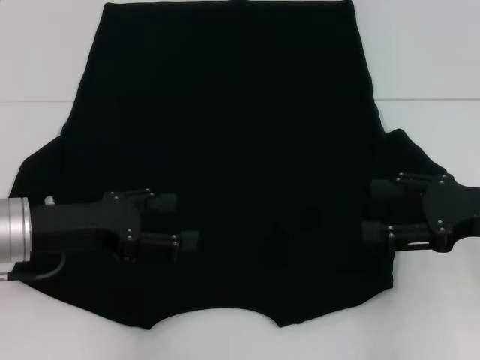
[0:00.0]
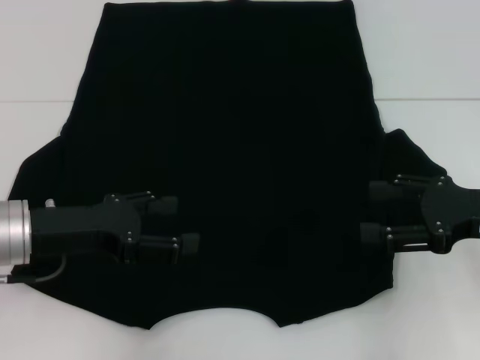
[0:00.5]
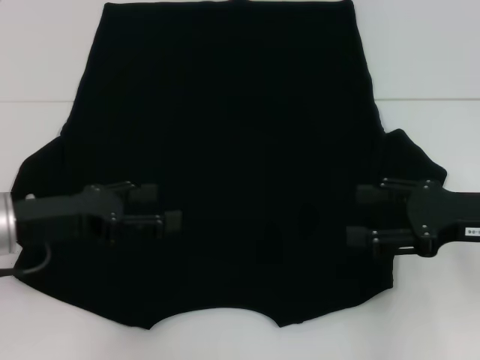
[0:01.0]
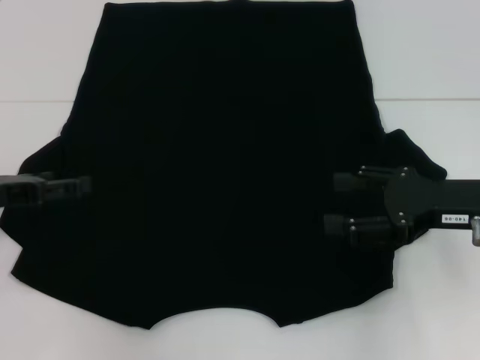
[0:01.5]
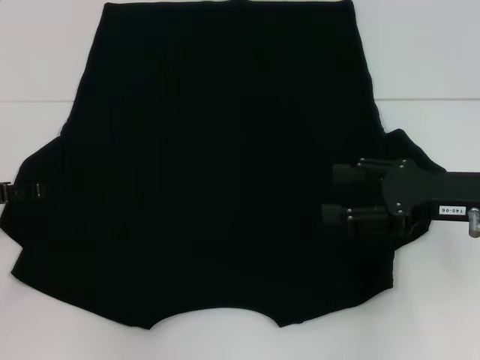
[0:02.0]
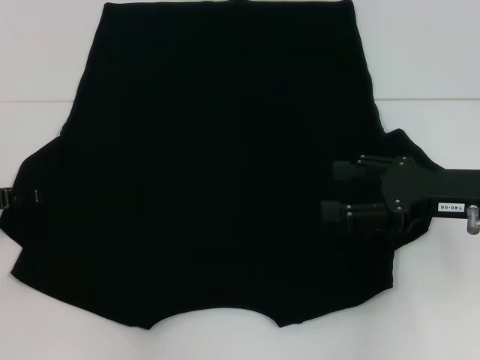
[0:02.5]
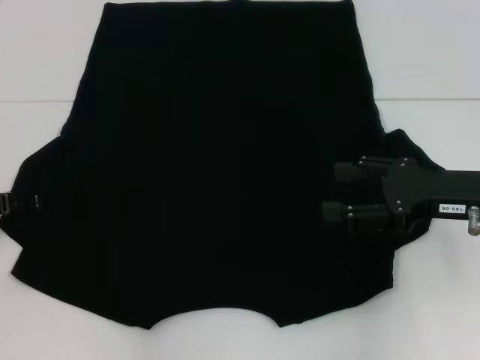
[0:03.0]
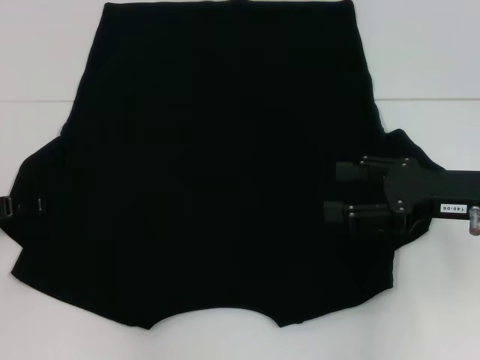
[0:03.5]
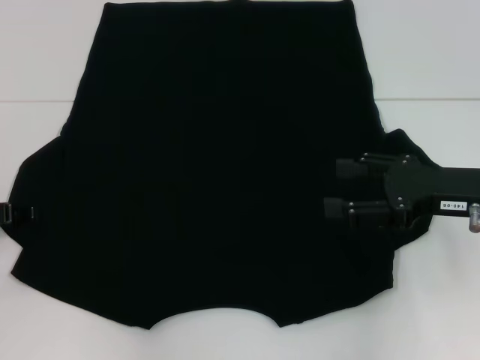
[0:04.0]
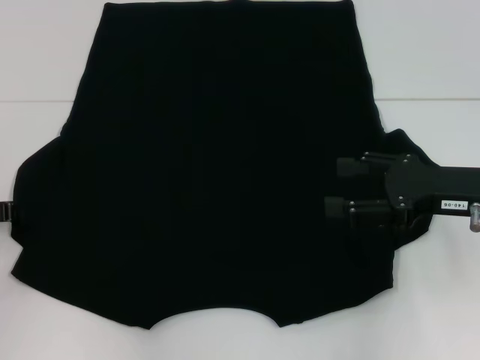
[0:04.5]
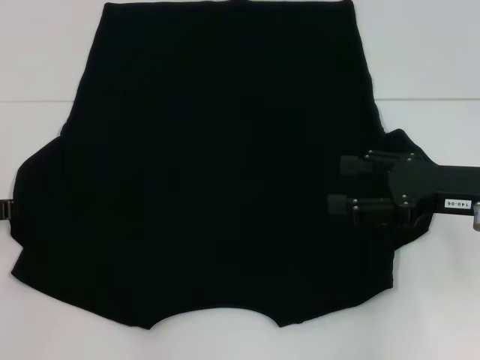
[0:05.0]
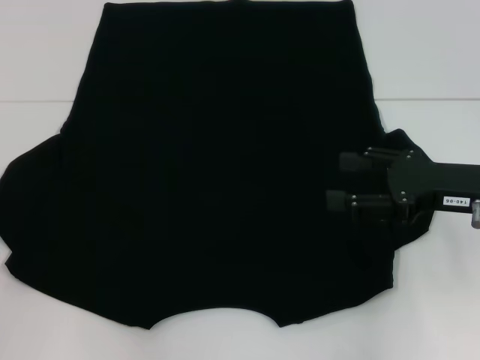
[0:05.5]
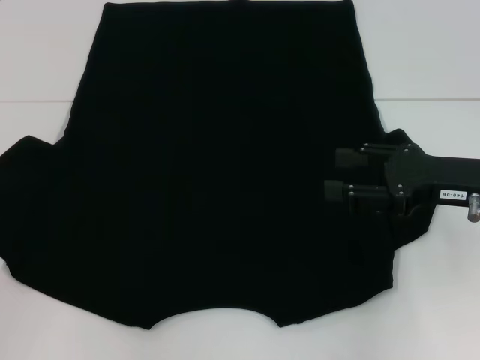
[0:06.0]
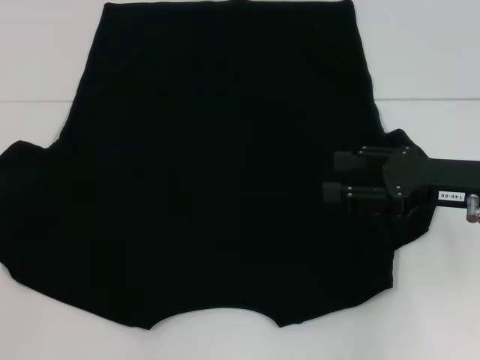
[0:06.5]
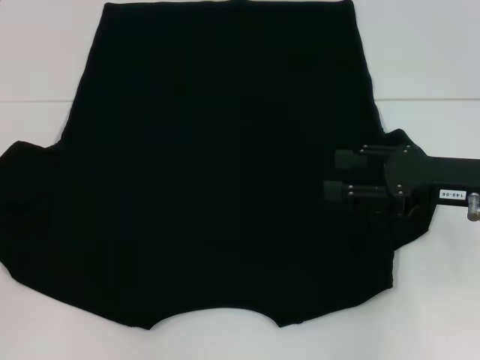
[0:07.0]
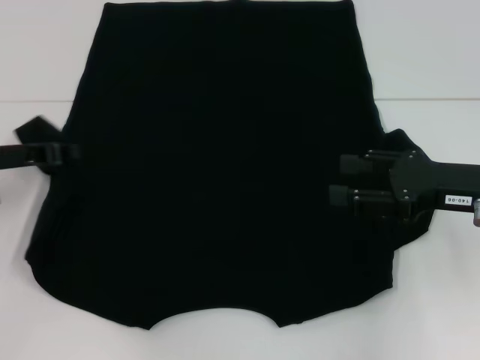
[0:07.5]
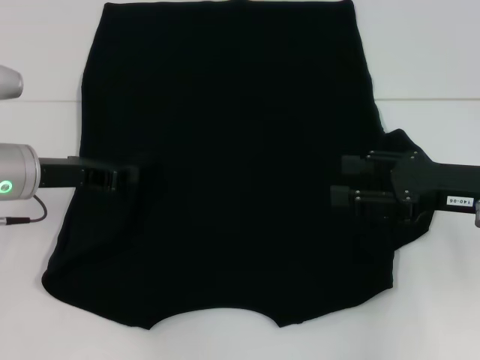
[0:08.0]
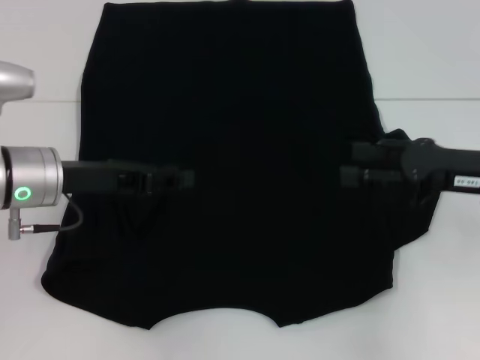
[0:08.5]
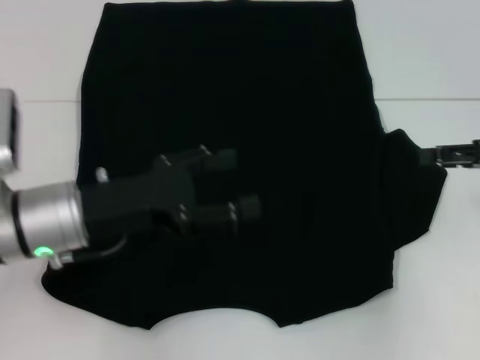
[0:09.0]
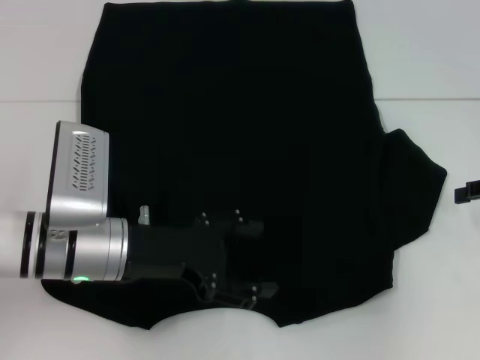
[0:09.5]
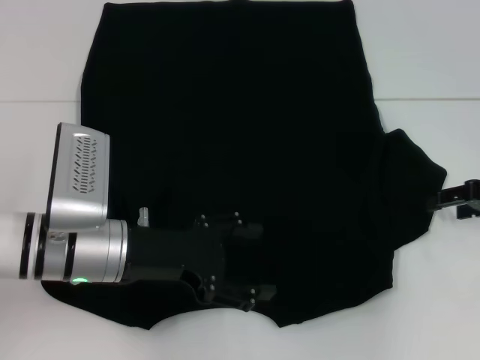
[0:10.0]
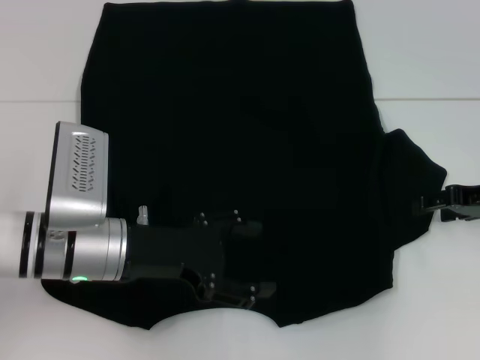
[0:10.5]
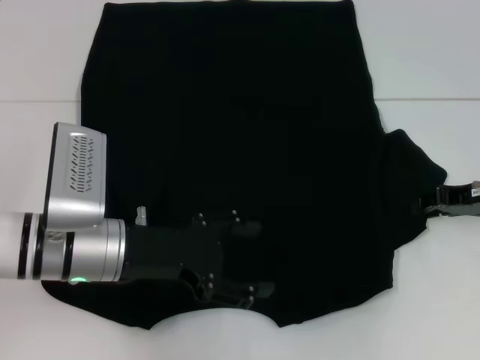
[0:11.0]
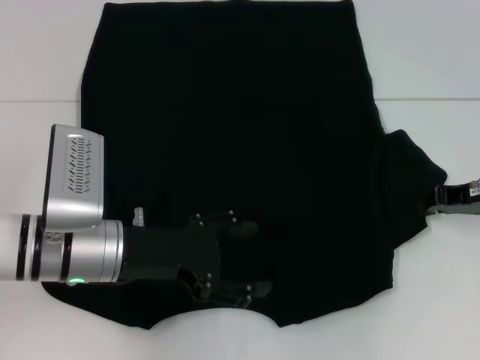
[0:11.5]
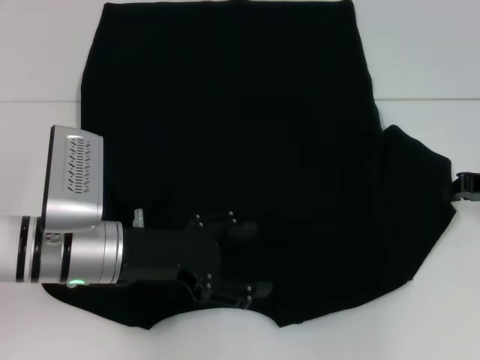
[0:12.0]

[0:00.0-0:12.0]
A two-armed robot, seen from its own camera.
Step, 0:00.0 to 0:08.0: Fold the bottom left sleeve with your left hand.
0:00.0 to 0:02.0: The left gripper shifts about 10 cm to the left.
0:02.0 to 0:04.0: There are only small adjustments of the grippers.
0:04.0 to 0:06.0: The left gripper closes.
0:06.0 to 0:08.0: The left gripper moves to the right, approximately 15 cm.
0:08.0 to 0:10.0: The right gripper goes some 5 cm to the right; the left gripper is displaced to the right and backward by approximately 10 cm, and opens its fingers.
0:10.0 to 0:12.0: The right gripper closes.

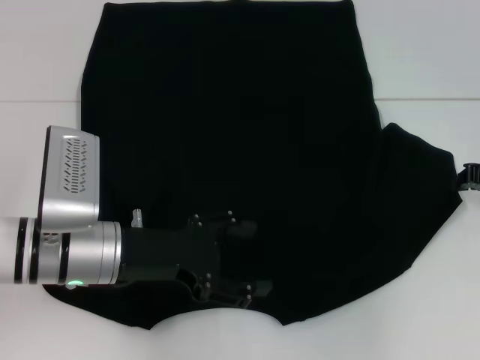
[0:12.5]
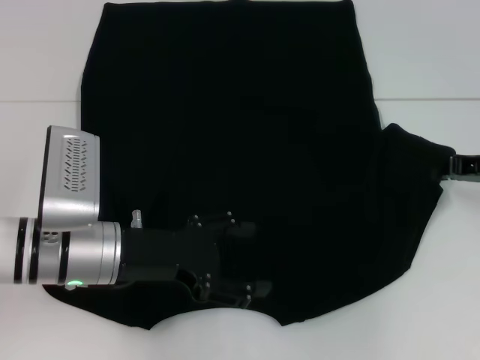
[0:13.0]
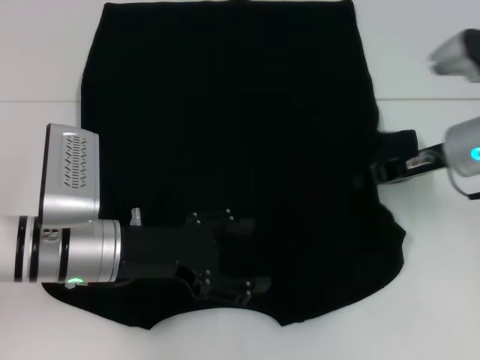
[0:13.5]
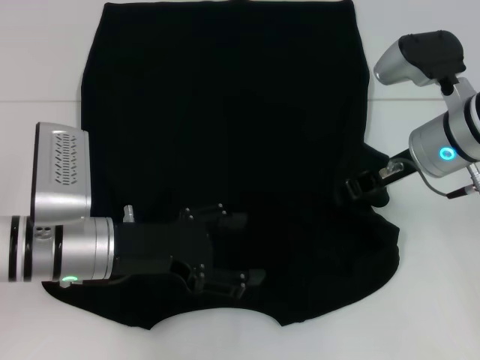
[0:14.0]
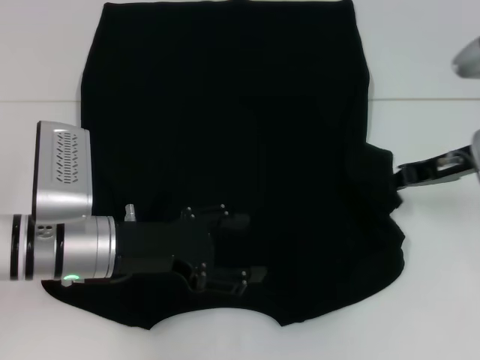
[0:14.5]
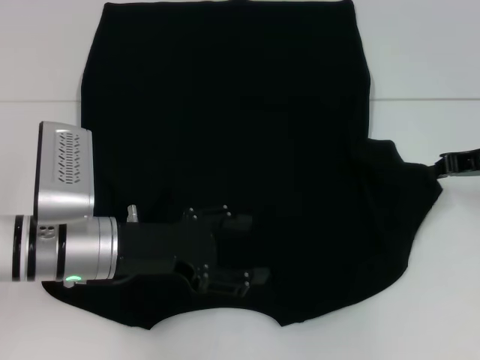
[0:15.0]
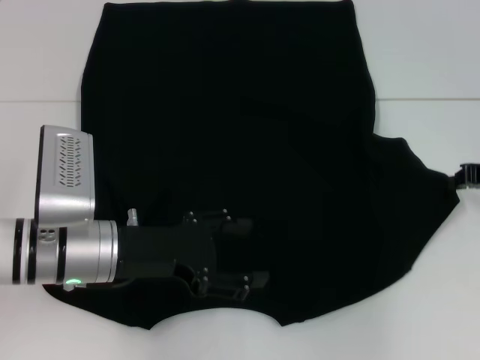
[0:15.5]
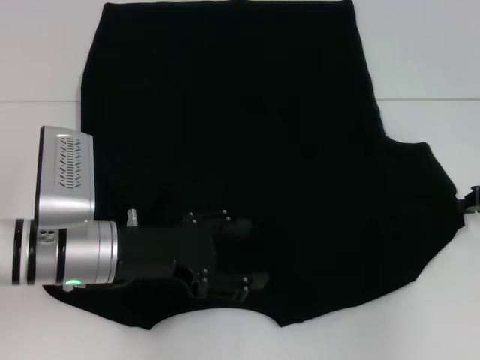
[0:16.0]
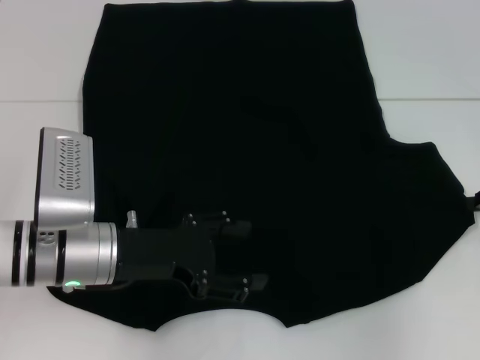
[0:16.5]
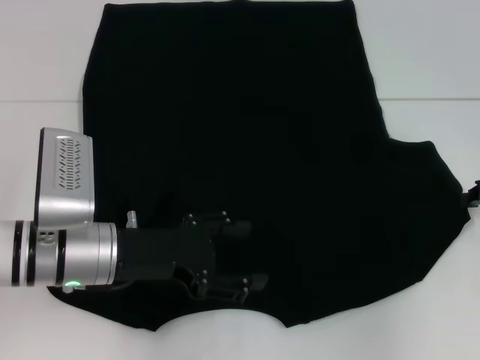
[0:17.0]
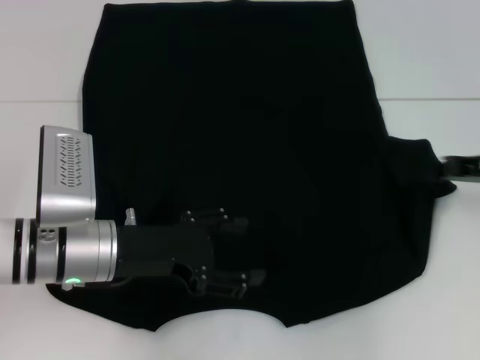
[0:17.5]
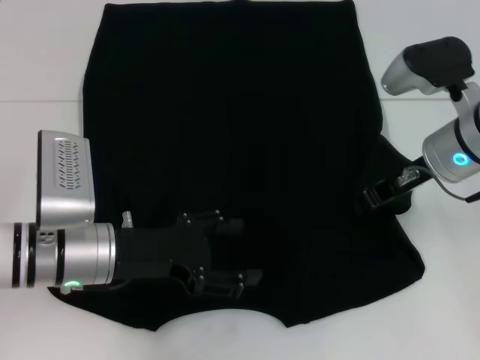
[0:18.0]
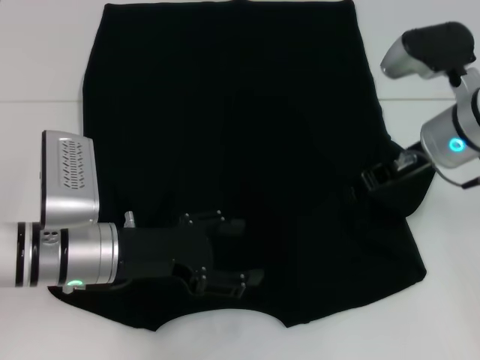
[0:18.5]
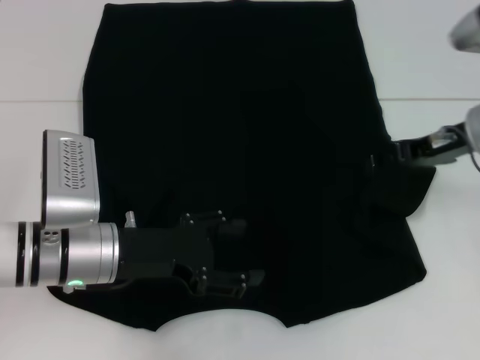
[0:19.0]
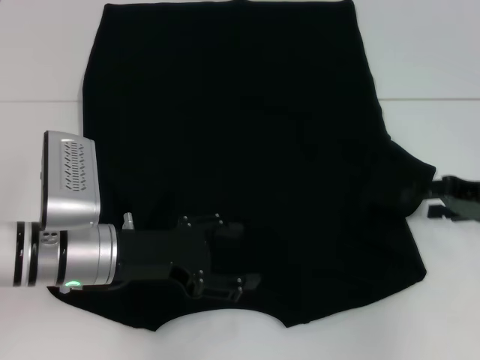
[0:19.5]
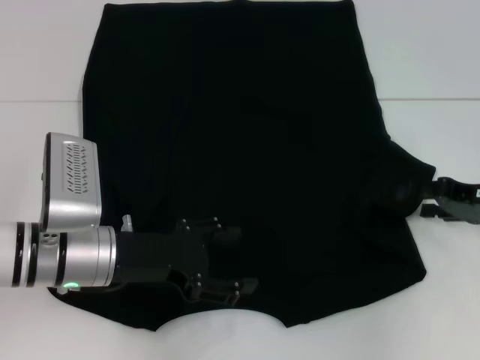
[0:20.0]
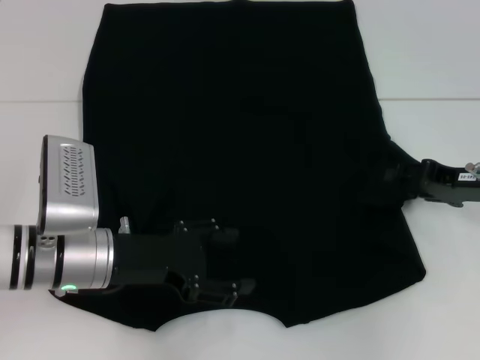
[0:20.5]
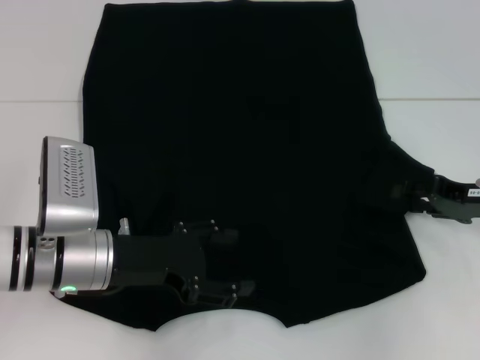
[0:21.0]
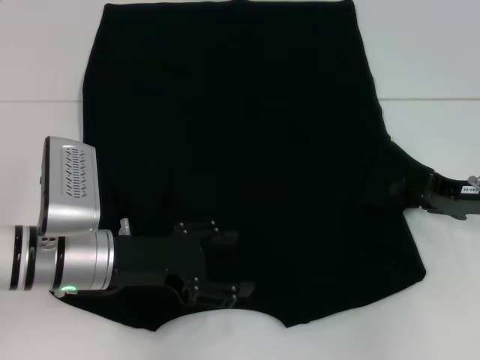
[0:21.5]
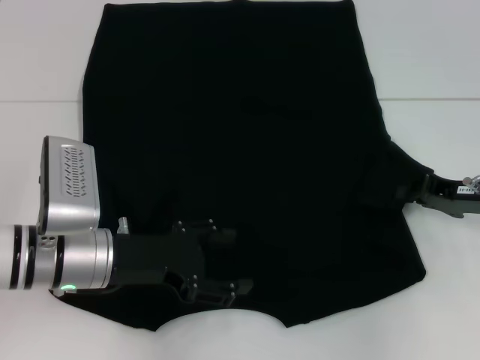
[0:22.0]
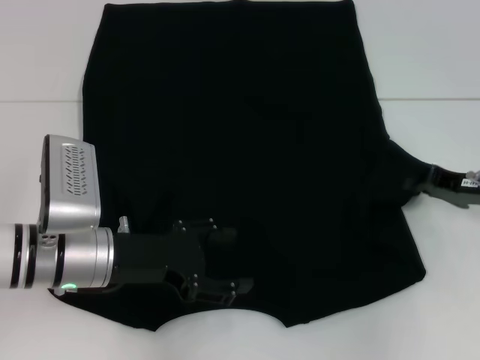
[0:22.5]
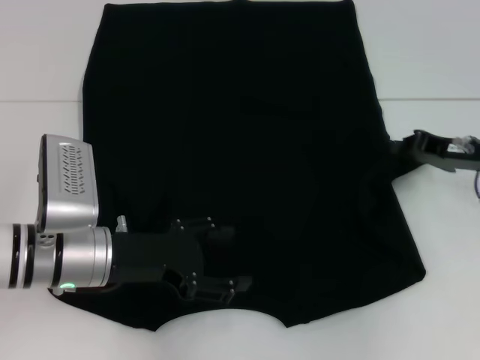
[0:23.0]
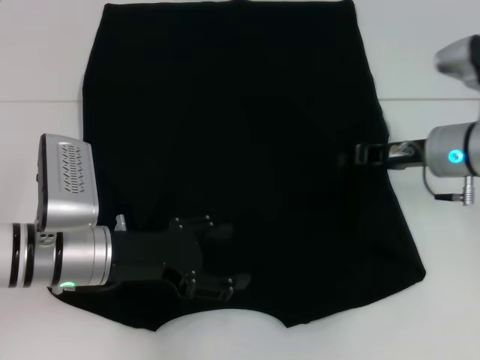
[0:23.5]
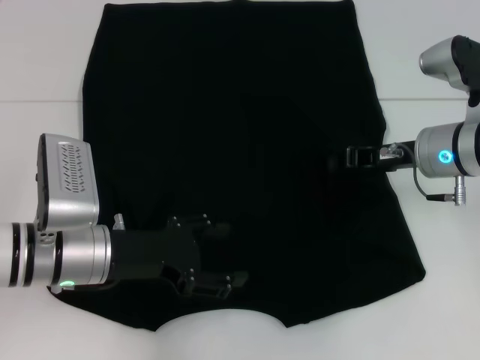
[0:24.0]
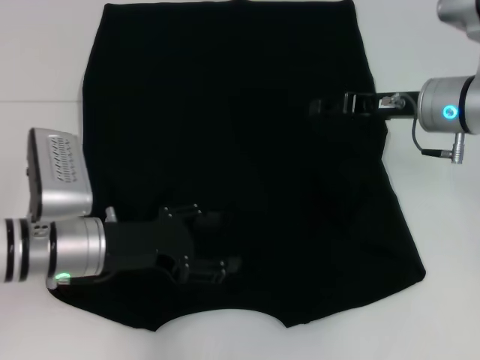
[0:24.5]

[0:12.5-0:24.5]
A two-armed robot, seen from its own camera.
0:12.5 to 0:14.5: The right gripper travels to the left by about 5 cm.
0:14.5 to 0:16.5: The right gripper goes some 10 cm to the right.
0:16.5 to 0:18.5: The right gripper shifts about 15 cm to the left.
0:18.5 to 0:20.5: The right gripper shifts some 10 cm to the right and downward, and opens its fingers.
0:20.5 to 0:22.5: The right gripper closes up.
0:22.5 to 0:24.5: The right gripper travels to the left, upward and forward by roughly 15 cm, and opens up.

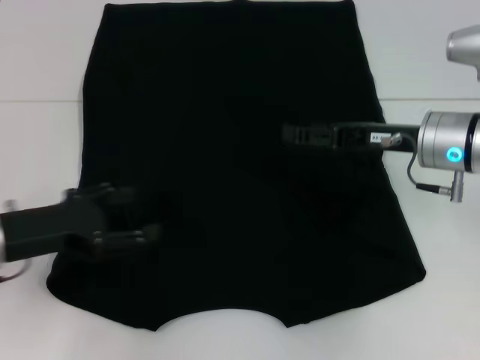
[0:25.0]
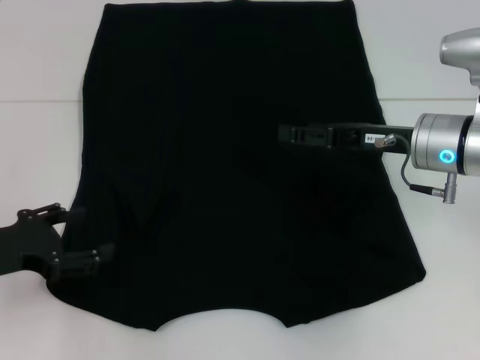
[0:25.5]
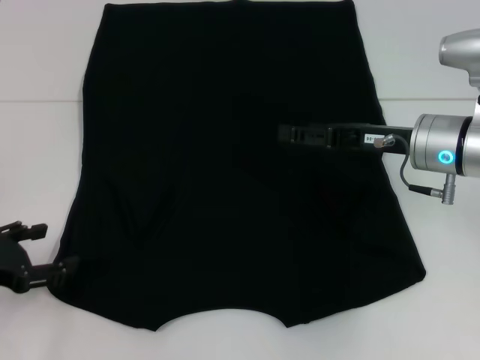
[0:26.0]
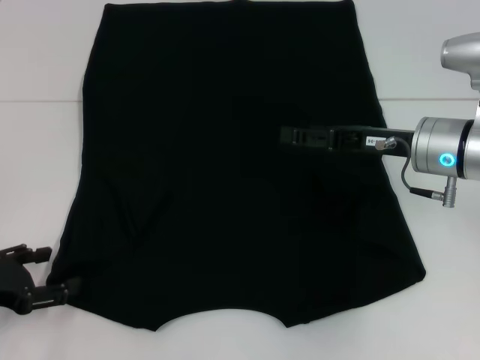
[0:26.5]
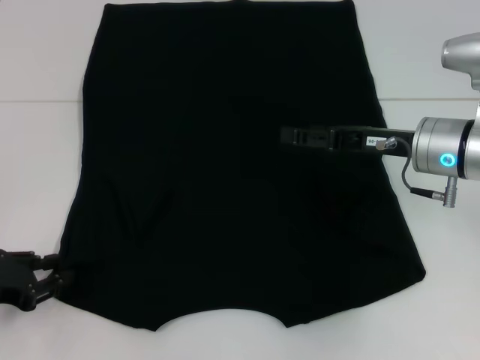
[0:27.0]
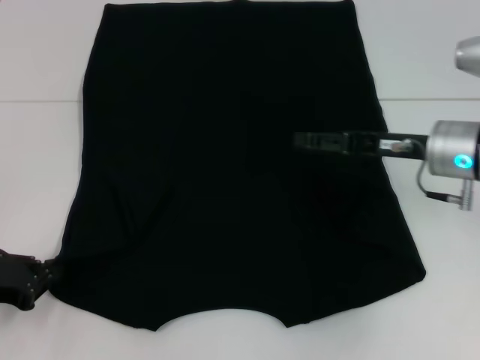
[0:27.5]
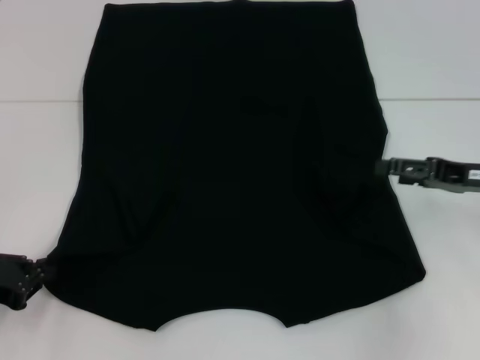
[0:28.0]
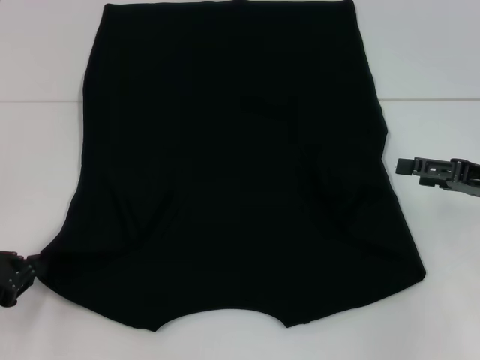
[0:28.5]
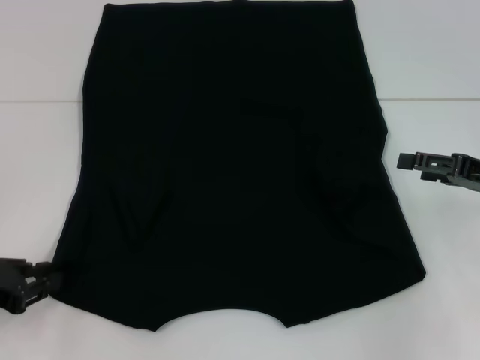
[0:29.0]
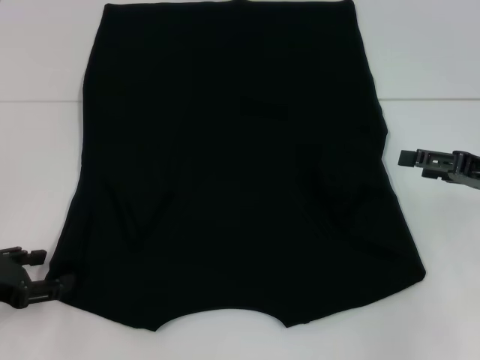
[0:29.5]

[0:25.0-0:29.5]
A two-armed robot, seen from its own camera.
0:25.0 to 0:27.0: The left gripper goes some 5 cm to the left.
0:27.0 to 0:29.5: The right gripper goes approximately 10 cm to the right, while the left gripper closes, then reopens.
